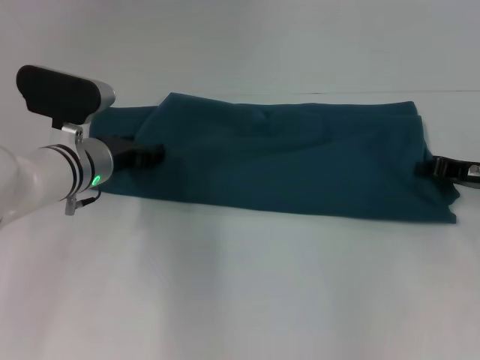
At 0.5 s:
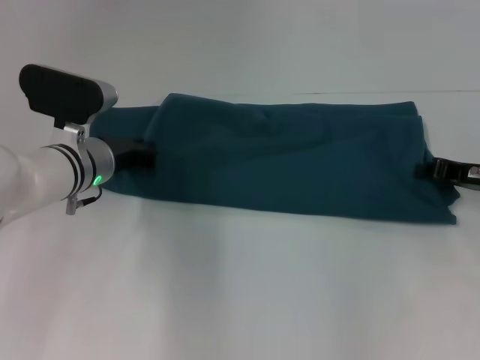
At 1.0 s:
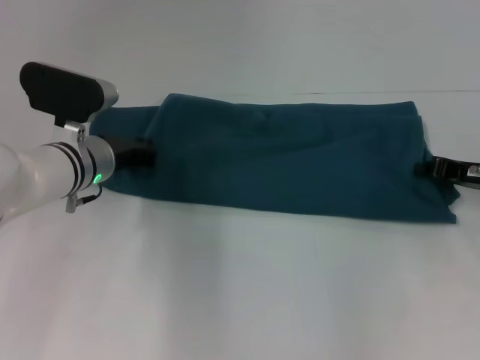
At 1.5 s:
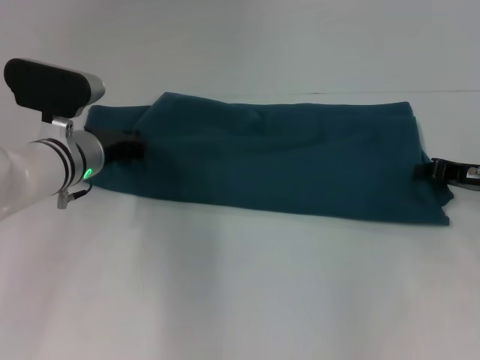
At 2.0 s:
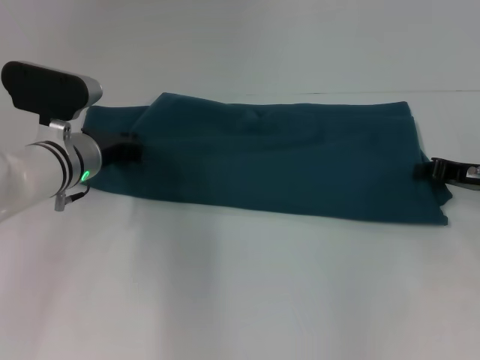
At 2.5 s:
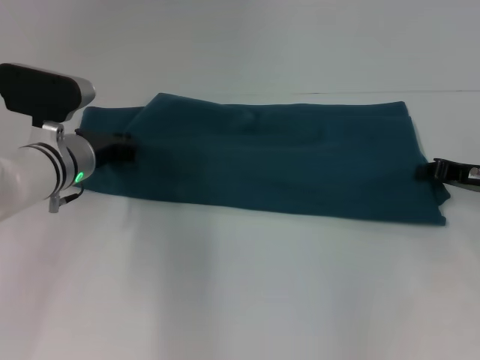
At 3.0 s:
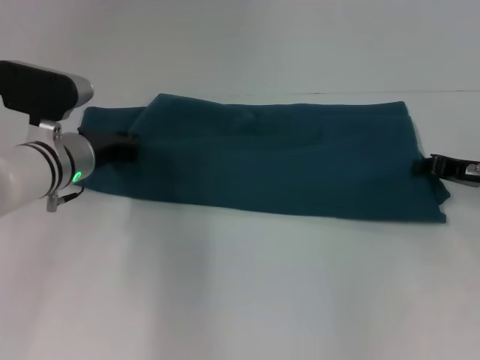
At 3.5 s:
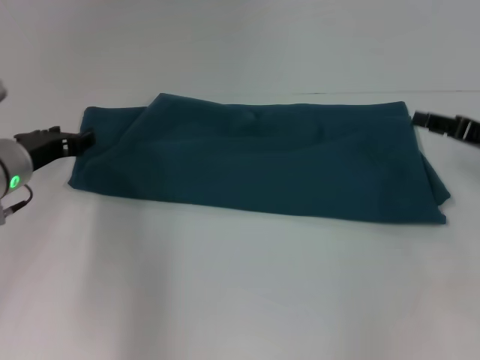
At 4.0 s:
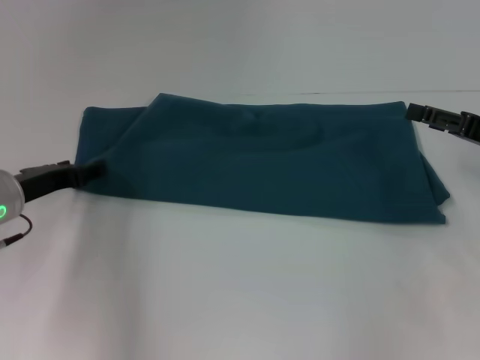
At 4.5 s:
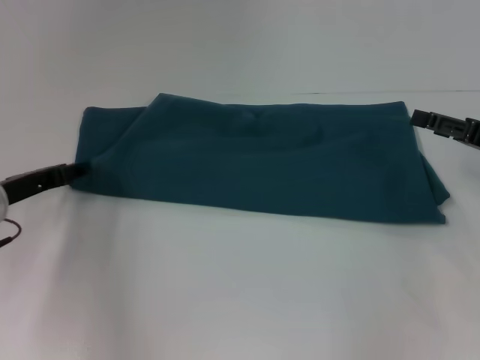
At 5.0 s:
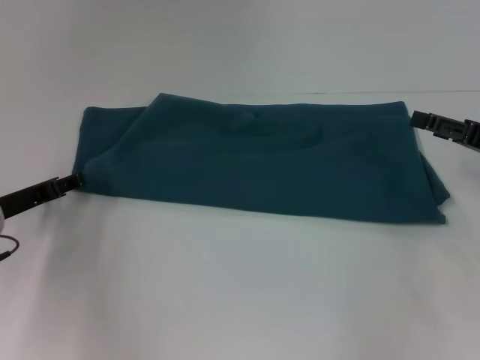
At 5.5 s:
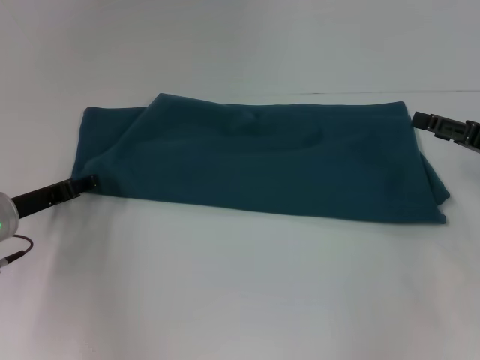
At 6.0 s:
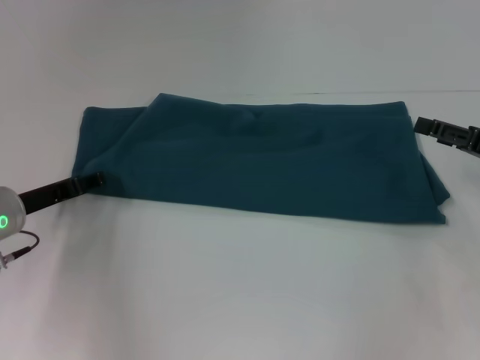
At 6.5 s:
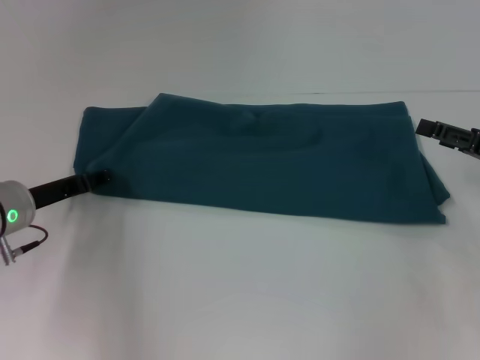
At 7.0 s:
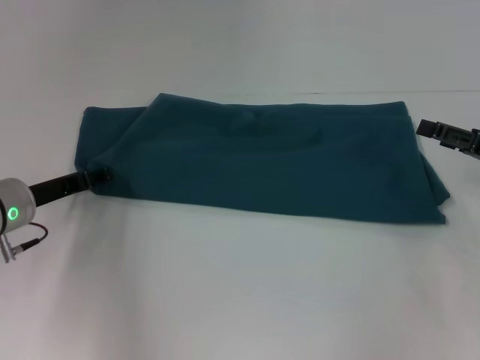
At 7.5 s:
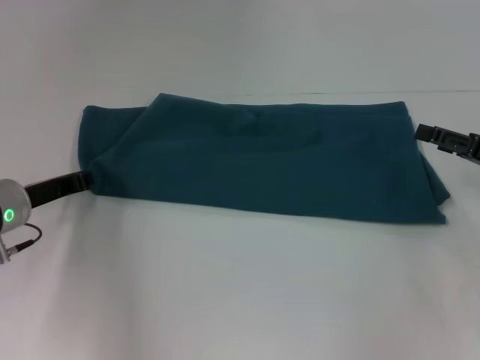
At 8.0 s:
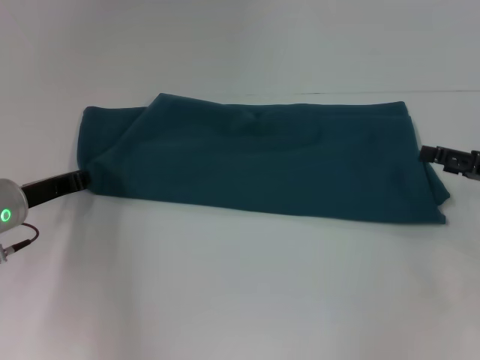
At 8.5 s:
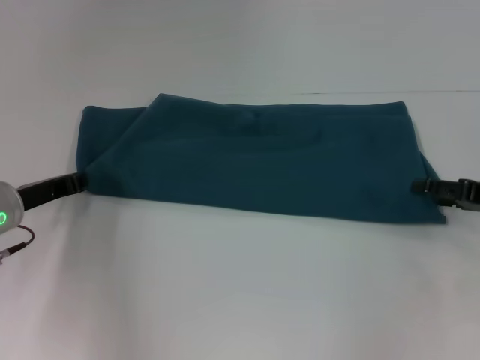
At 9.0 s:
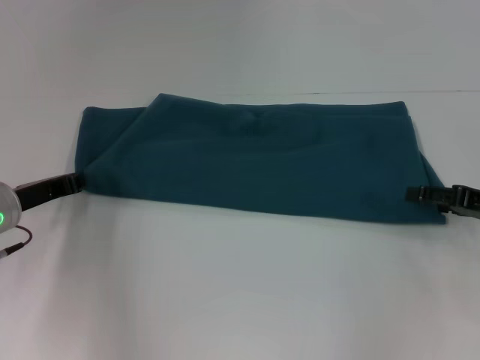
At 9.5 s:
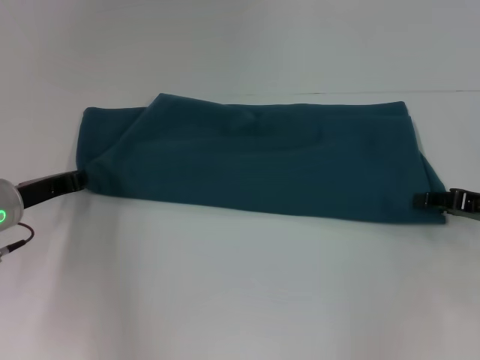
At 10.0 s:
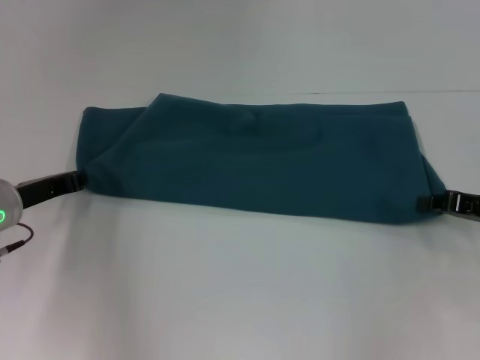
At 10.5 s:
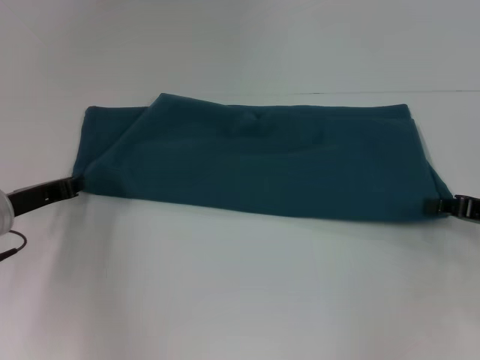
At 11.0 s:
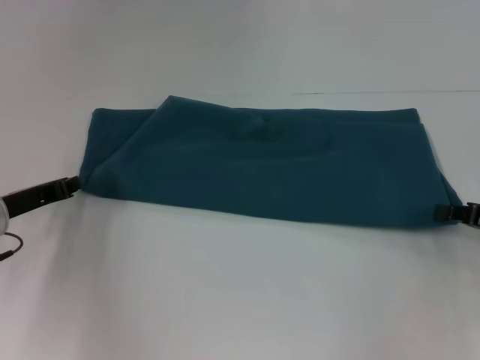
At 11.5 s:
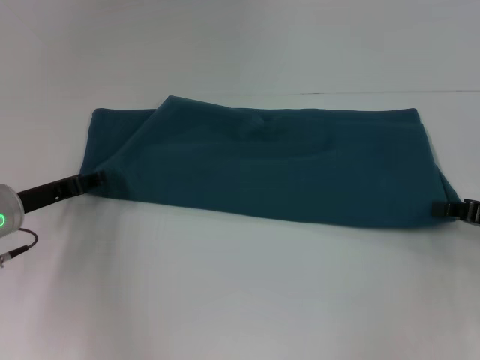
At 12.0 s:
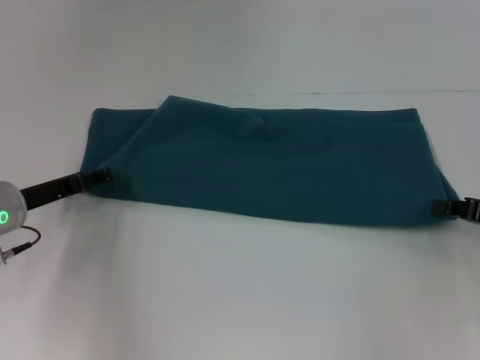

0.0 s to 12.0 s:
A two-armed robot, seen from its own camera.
0.0 to 2.0 s: The left gripper closes its fingers.
2.0 to 4.0 s: The left gripper is displaced to the left and backward by roughly 10 cm, and opens. Meanwhile the right gripper shifts by some 5 cm, and opens its fingers.
4.0 to 6.0 s: The grippers make only small movements.
6.0 to 8.0 s: The left gripper closes.
8.0 to 10.0 s: The right gripper closes its fingers.
10.0 to 12.0 s: The left gripper opens its fingers.

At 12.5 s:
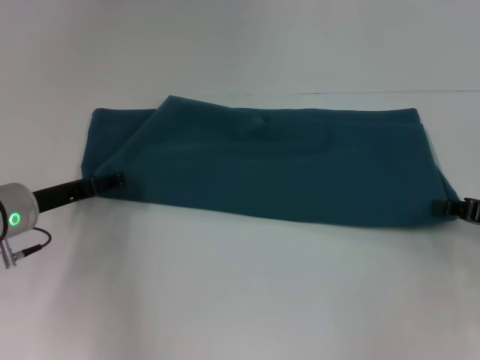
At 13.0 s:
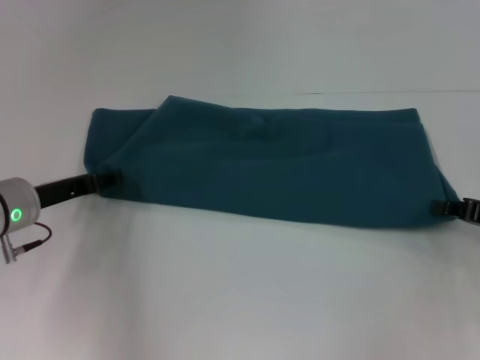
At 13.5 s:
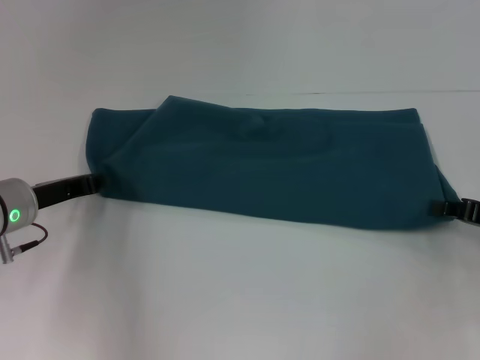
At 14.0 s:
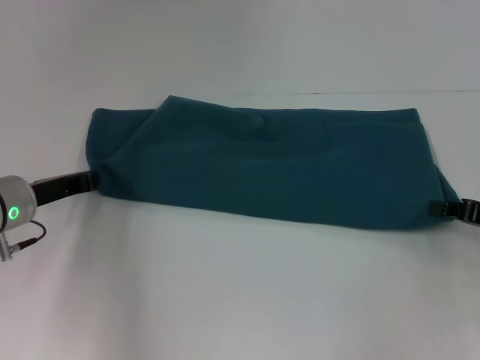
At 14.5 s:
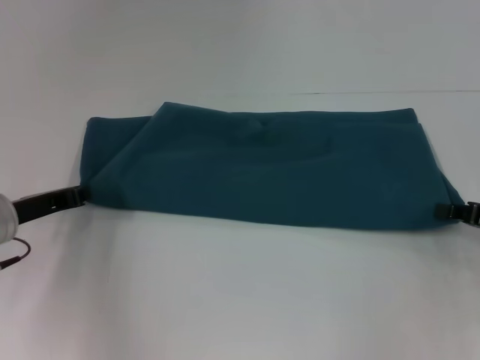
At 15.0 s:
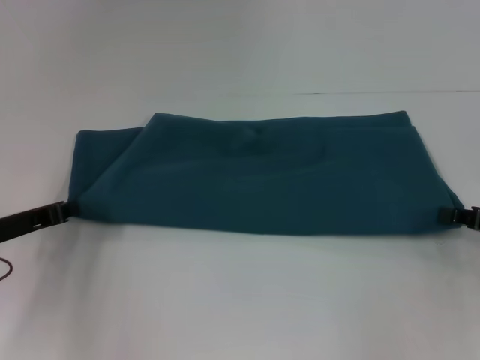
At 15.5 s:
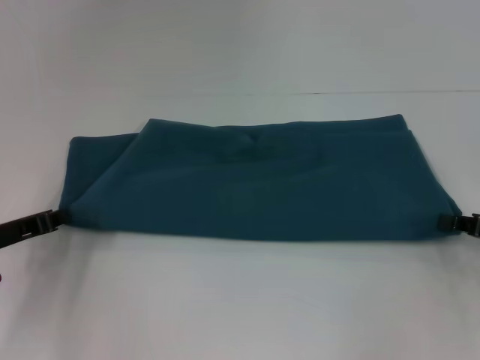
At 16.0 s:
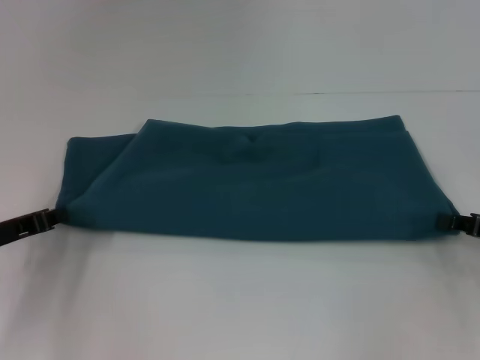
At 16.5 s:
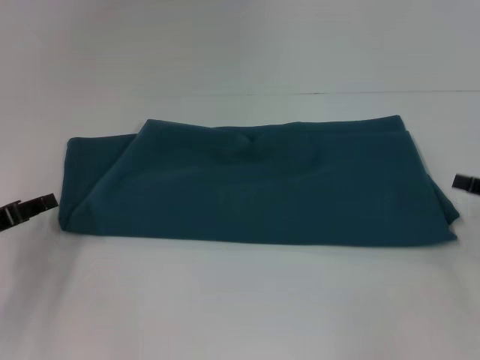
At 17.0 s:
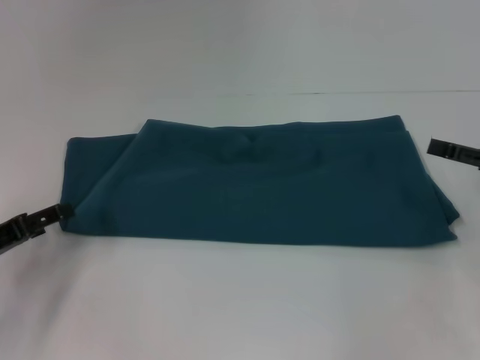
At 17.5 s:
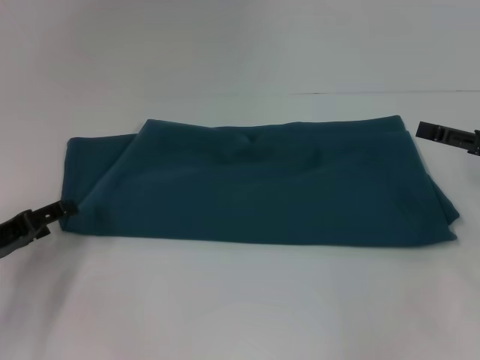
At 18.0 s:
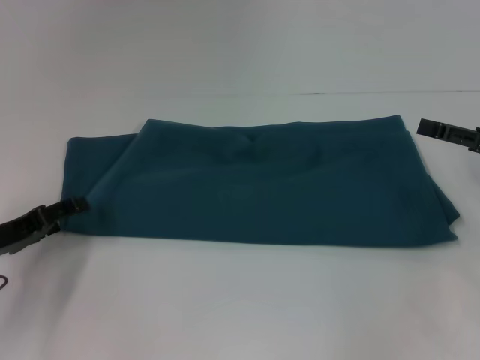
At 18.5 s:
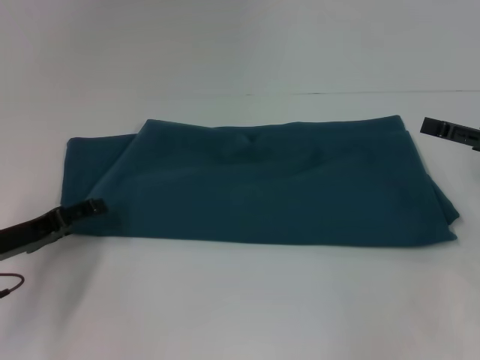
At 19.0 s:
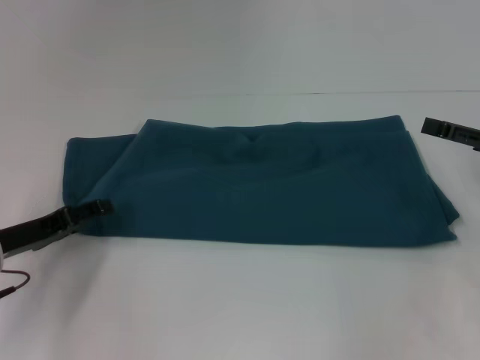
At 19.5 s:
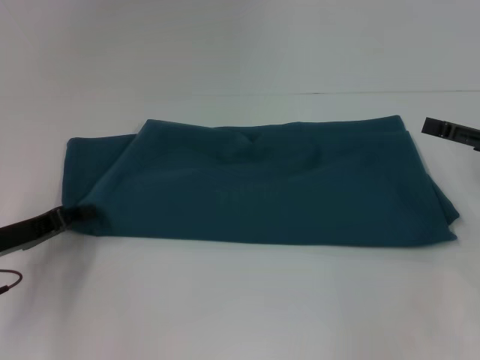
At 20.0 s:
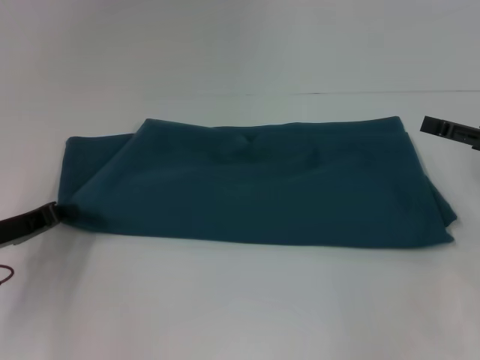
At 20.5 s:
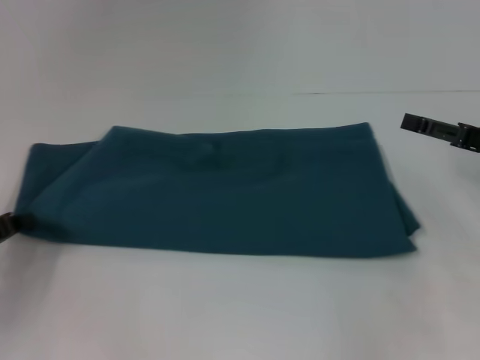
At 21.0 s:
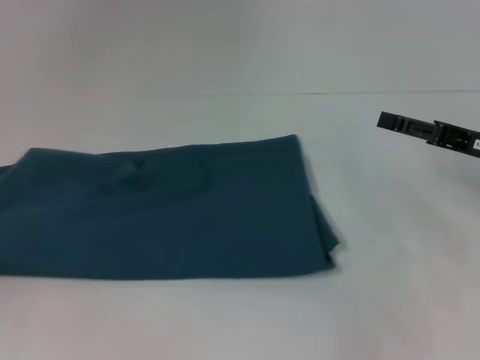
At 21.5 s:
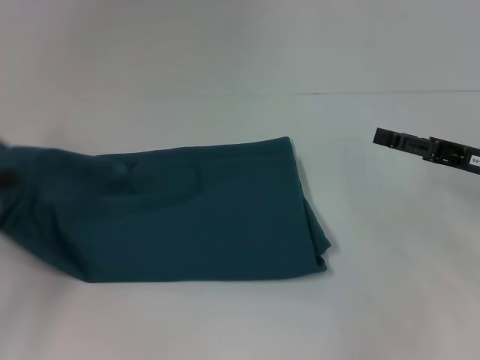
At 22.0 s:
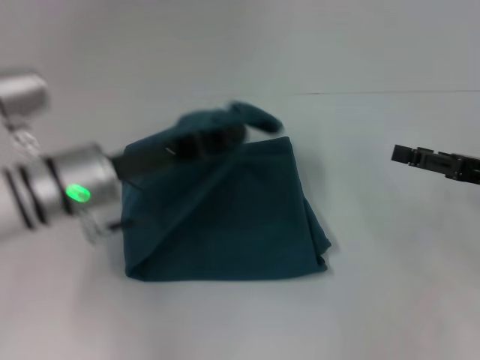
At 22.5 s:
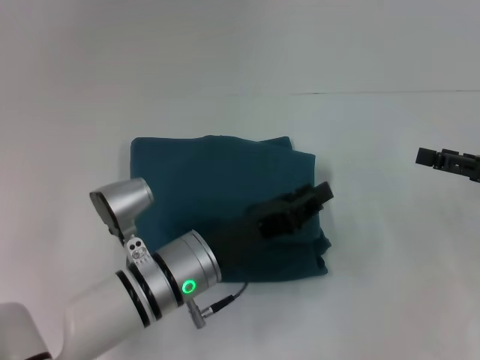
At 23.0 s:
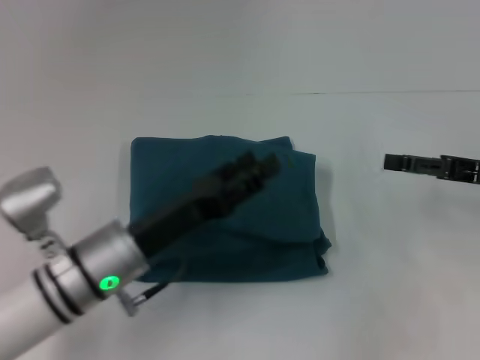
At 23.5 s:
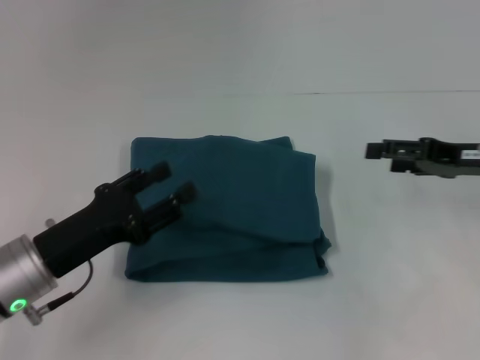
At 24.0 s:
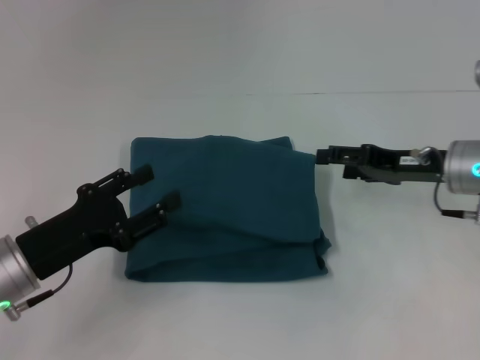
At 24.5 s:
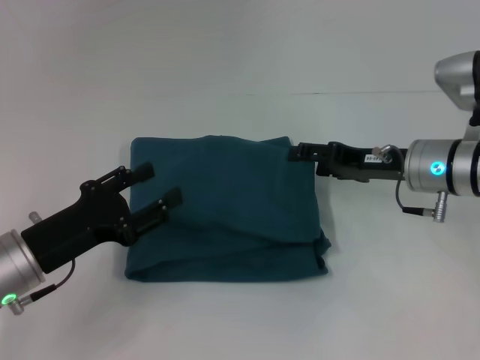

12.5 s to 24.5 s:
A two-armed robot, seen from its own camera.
Step, 12.5 to 22.5 s: Fold the clothes to the left.
12.5 to 14.5 s: The left gripper closes.
14.5 to 16.5 s: The left gripper goes approximately 5 cm to the left.
16.5 to 18.5 s: The right gripper moves roughly 5 cm, and opens, while the left gripper opens.
18.5 to 20.5 s: The left gripper closes its fingers.
20.5 to 22.5 s: The left gripper heads to the right, covering roughly 25 cm.
22.5 to 24.5 s: The left gripper shifts about 15 cm to the left, and opens up, while the right gripper goes some 15 cm to the left and forward.

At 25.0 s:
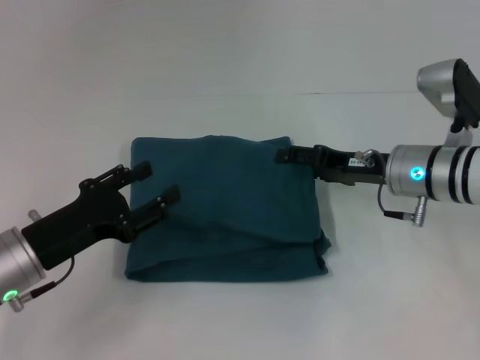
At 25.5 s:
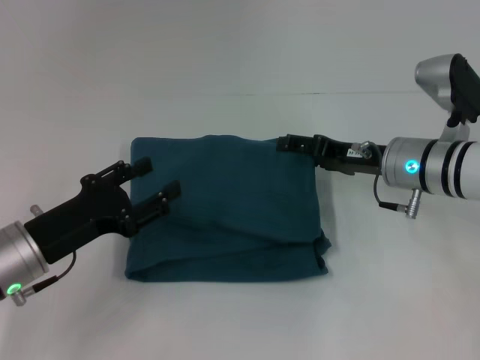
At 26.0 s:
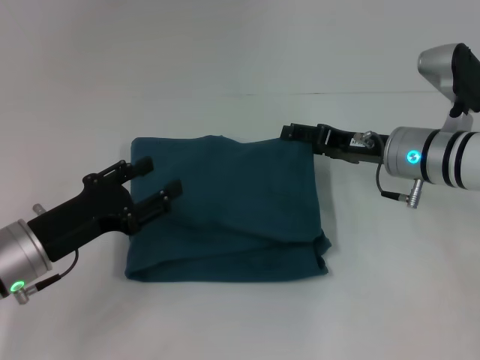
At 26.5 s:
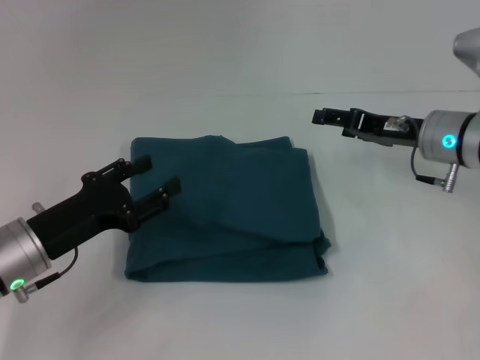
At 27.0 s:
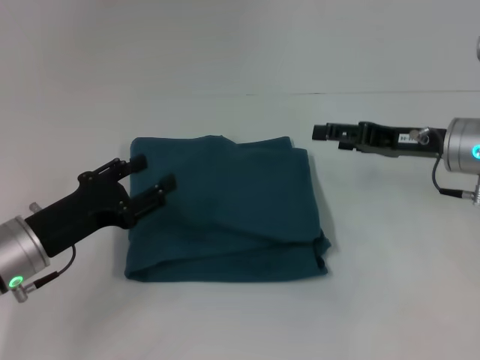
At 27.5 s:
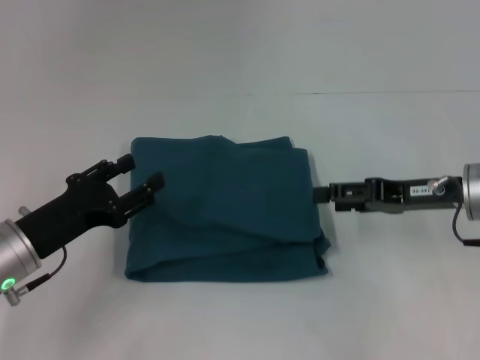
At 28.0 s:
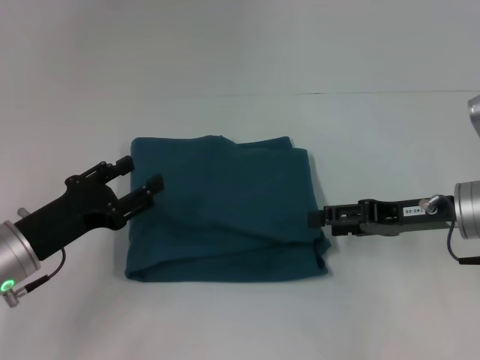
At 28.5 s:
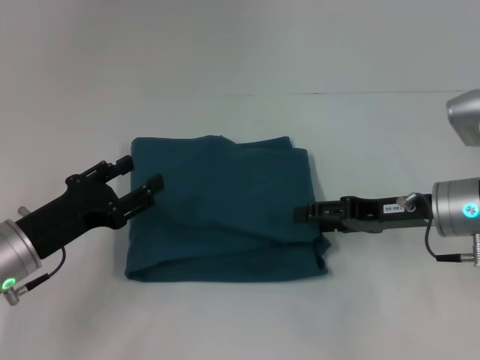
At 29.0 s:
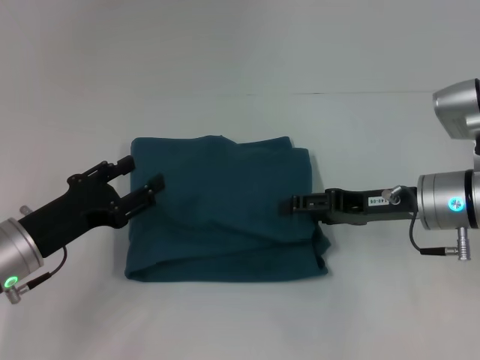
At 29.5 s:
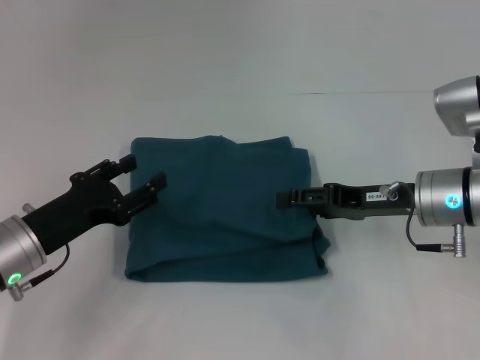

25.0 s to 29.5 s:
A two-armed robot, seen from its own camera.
25.0 to 27.0 s: The right gripper heads to the right, covering some 5 cm.
27.0 to 29.5 s: The right gripper changes place by some 5 cm.
